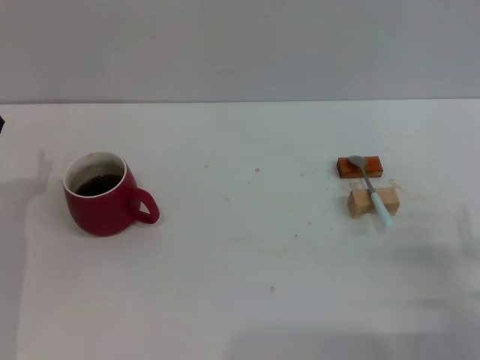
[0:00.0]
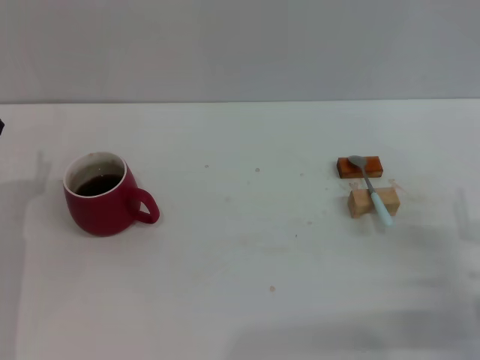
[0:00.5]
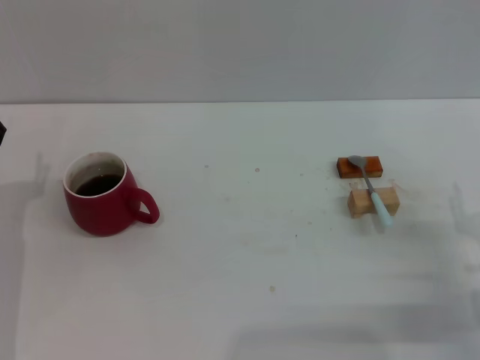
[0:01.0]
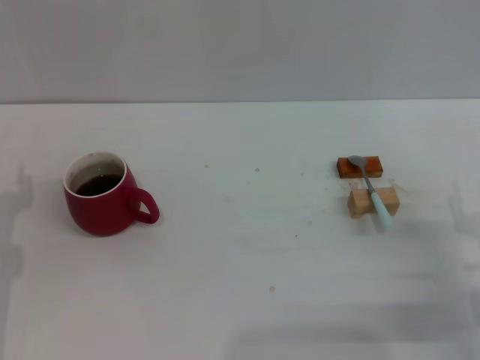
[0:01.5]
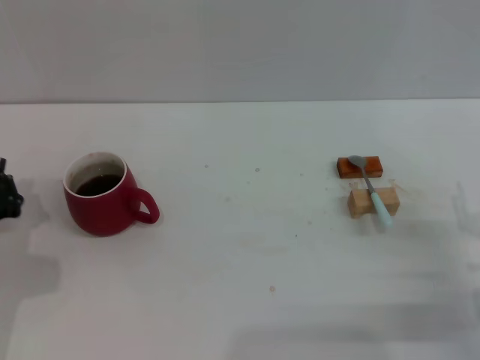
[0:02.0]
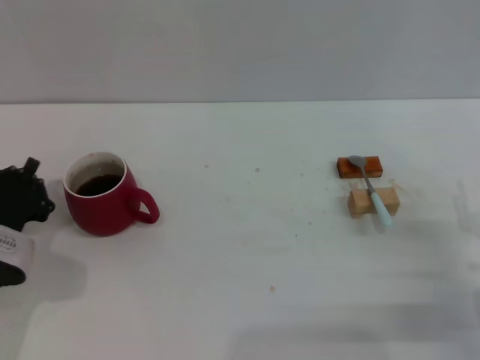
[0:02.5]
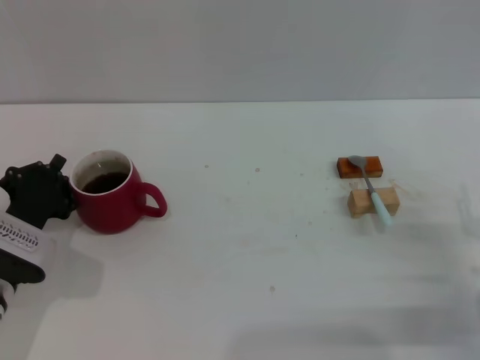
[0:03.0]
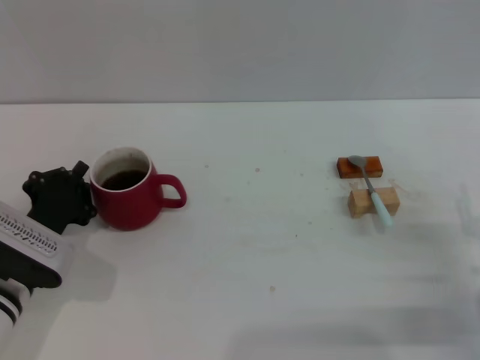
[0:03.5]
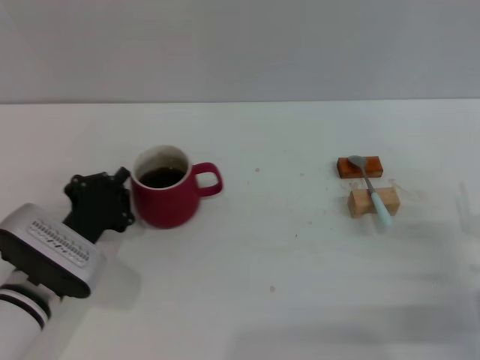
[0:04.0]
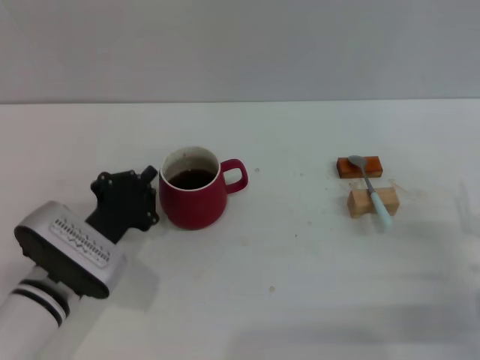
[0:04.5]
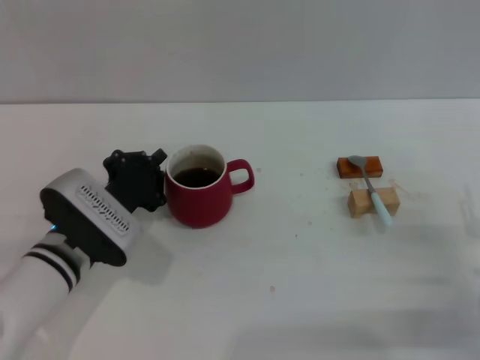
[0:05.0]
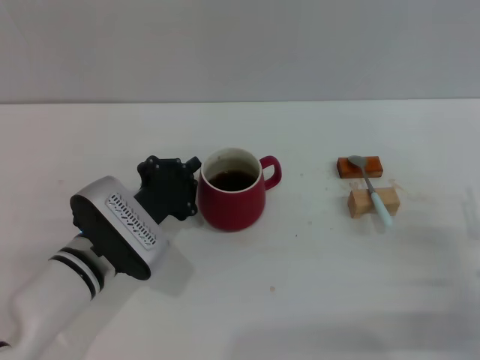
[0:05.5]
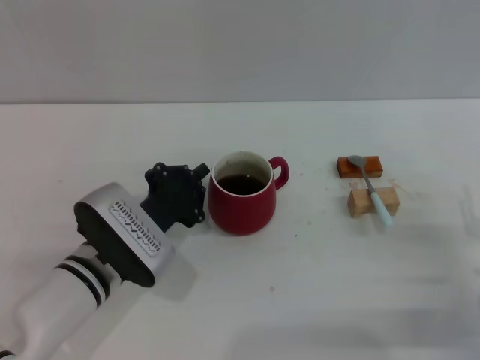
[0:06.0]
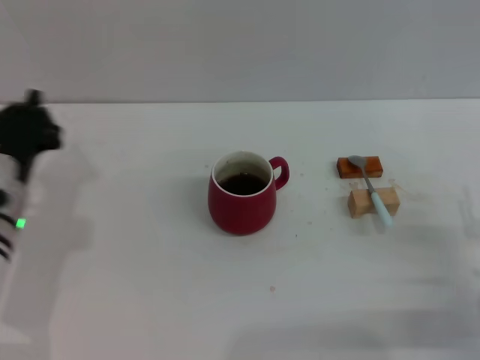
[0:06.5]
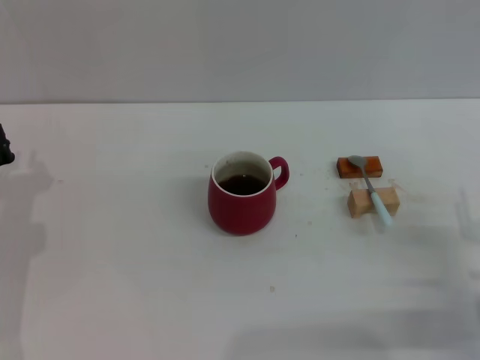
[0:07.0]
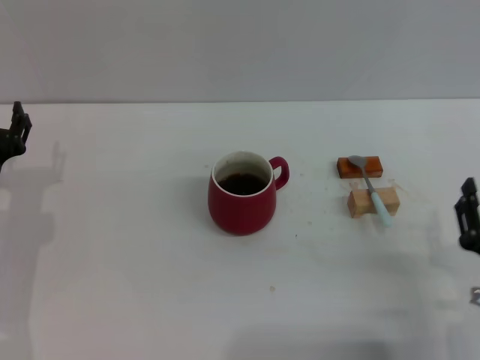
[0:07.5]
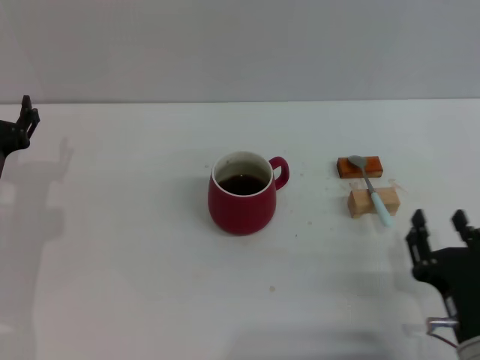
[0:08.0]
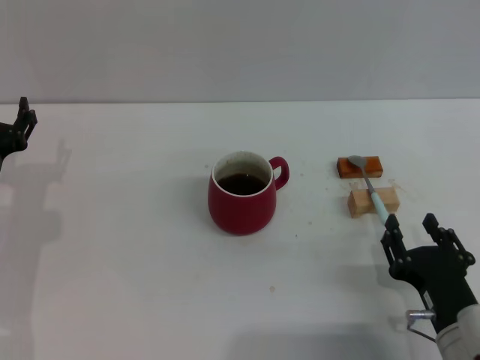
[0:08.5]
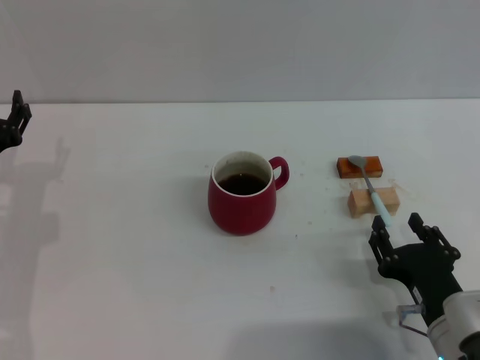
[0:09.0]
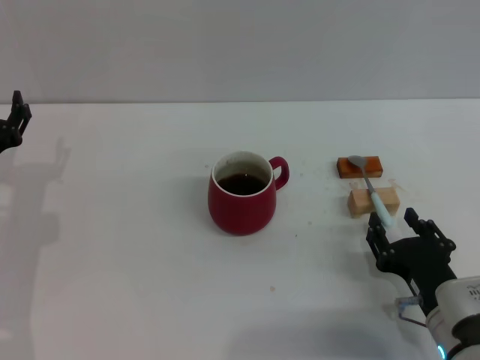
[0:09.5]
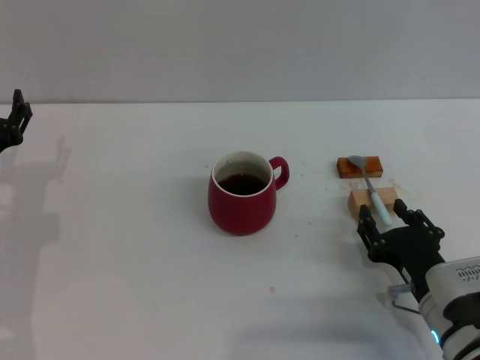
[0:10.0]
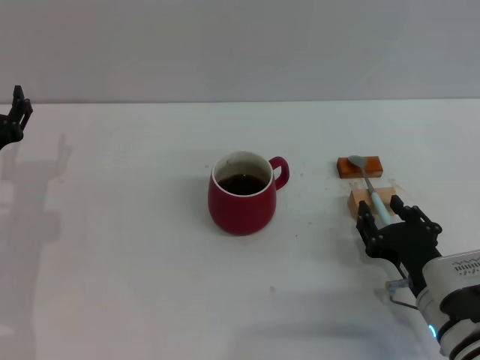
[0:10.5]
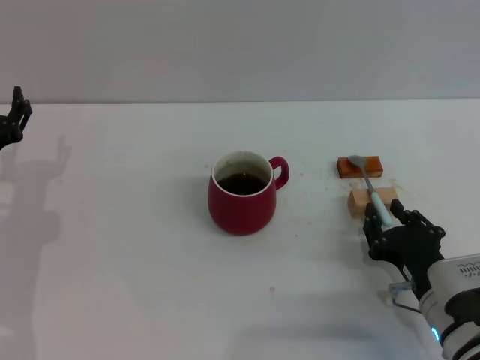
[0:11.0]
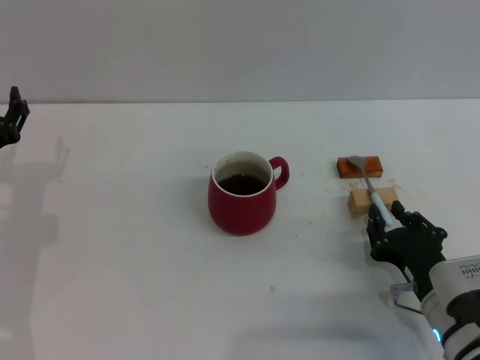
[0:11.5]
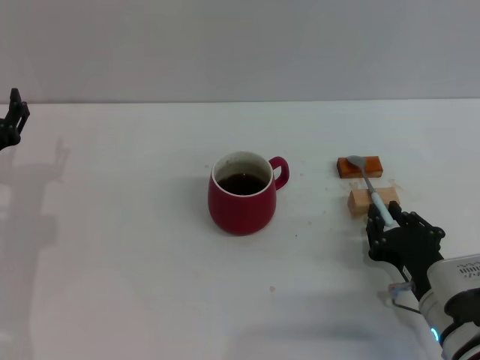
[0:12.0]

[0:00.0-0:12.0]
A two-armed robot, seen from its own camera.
Task of the whole recording: Move the red cup to the center, lift the blue spoon, stir it three times in the cup, and put the spoon into the cup.
Step, 0:00.0 to 0:06.0: Move the cup with coffee to the center of view with the left gripper.
0:00.0 to 0:02.0: The left gripper closes.
0:02.0 to 0:04.0: The left gripper shifts approximately 10 cm to the right.
0:04.0 to 0:06.0: The left gripper is displaced to the right by roughly 5 cm.
0:06.0 to 0:08.0: The left gripper moves to the left, about 15 cm, and opens its fingers, while the right gripper shifts approximately 10 cm to the left and backward.
0:08.0 to 0:10.0: The right gripper shifts roughly 5 cm forward.
0:10.0 to 0:12.0: The right gripper closes.

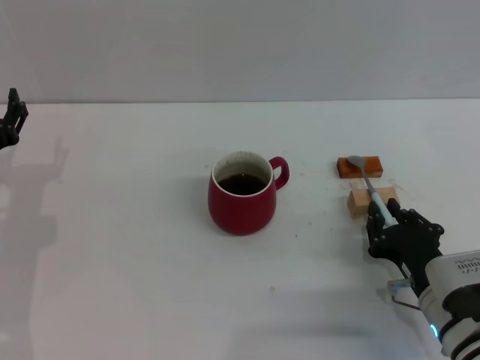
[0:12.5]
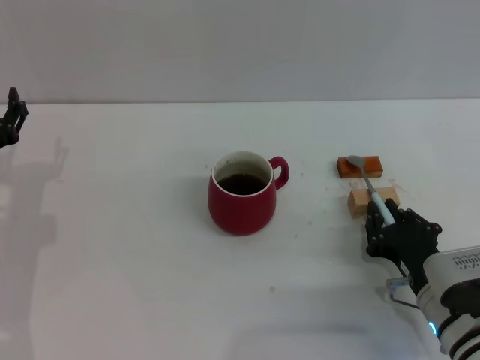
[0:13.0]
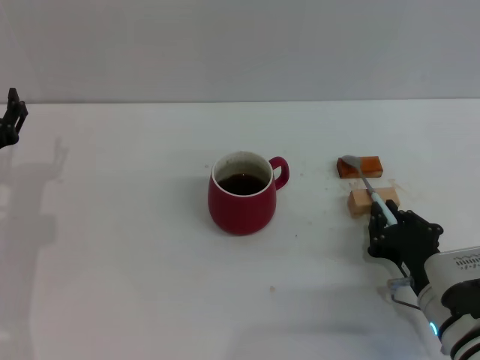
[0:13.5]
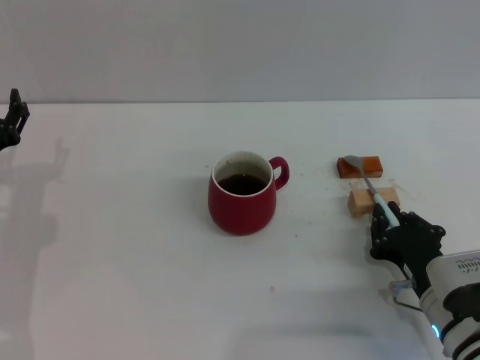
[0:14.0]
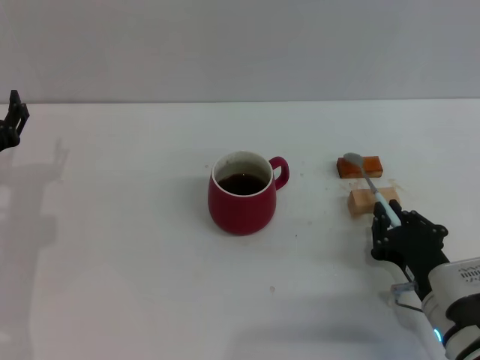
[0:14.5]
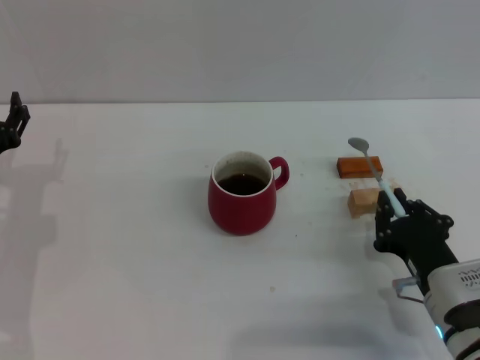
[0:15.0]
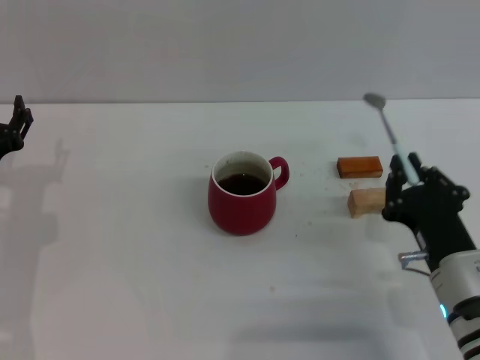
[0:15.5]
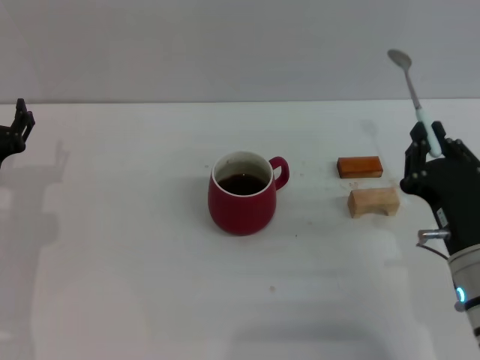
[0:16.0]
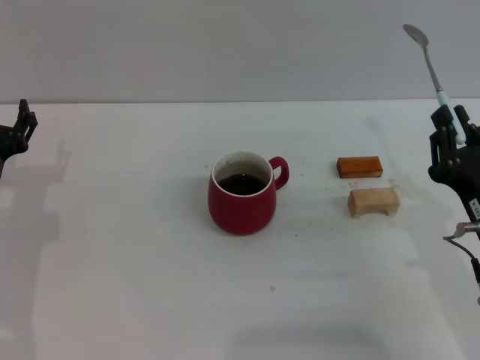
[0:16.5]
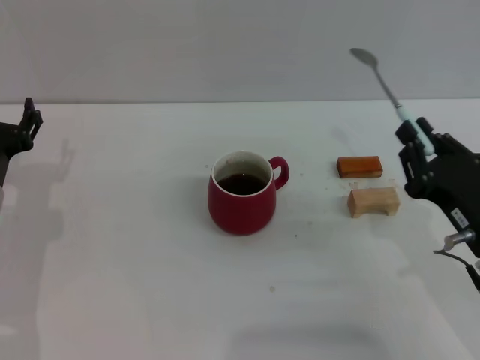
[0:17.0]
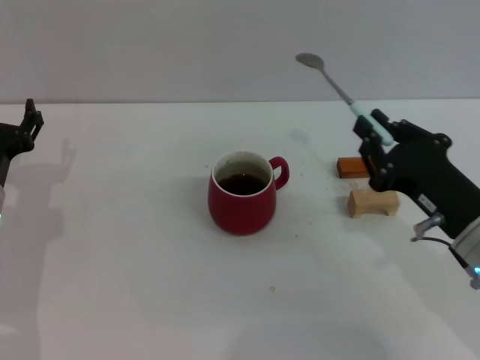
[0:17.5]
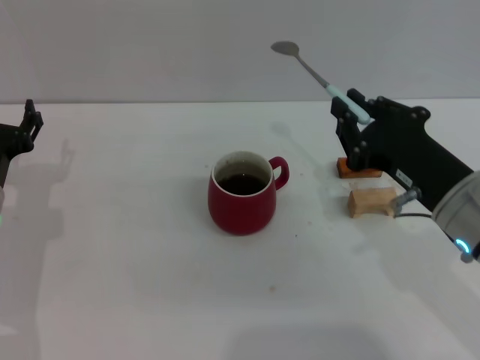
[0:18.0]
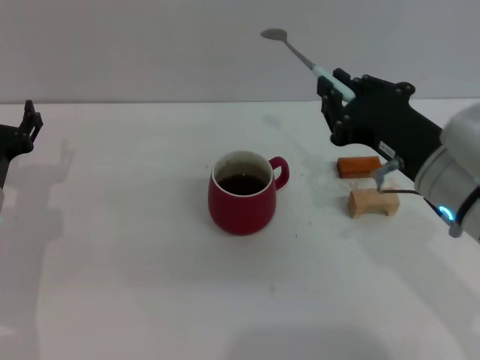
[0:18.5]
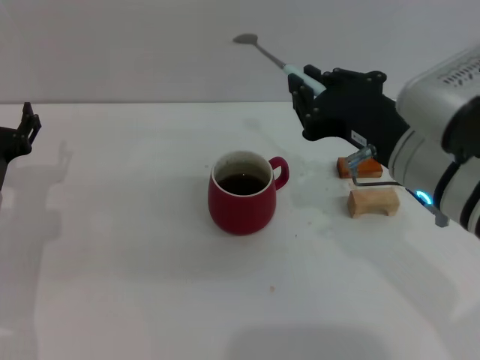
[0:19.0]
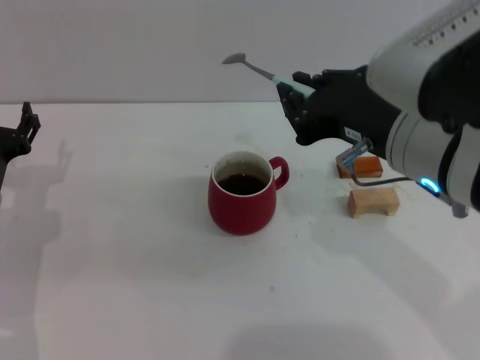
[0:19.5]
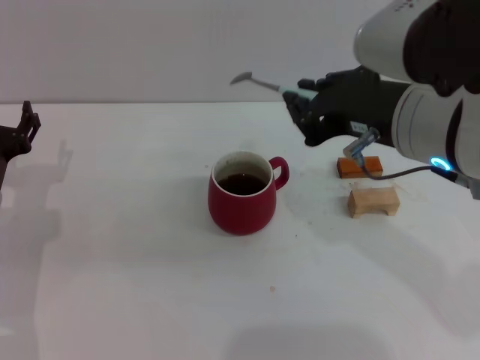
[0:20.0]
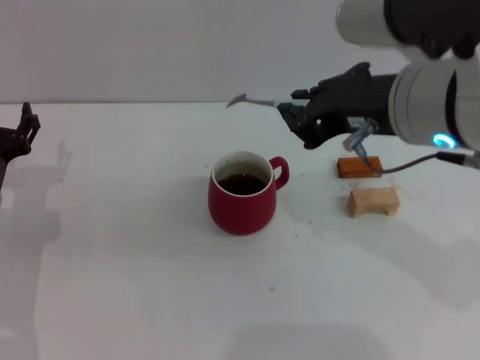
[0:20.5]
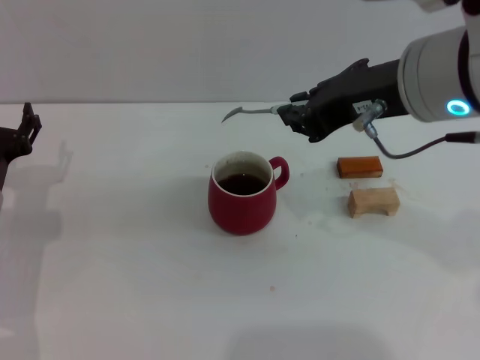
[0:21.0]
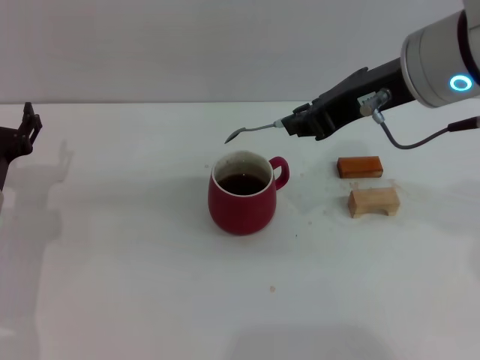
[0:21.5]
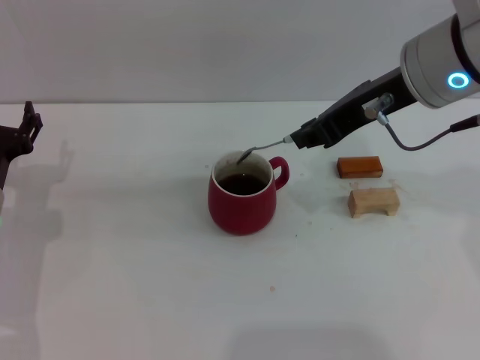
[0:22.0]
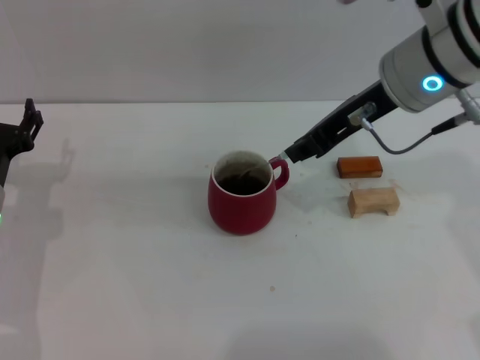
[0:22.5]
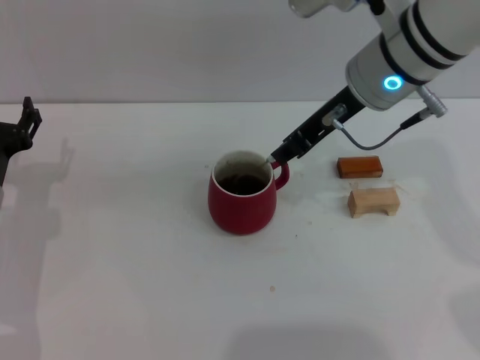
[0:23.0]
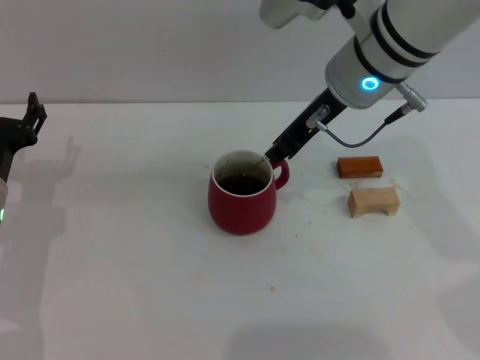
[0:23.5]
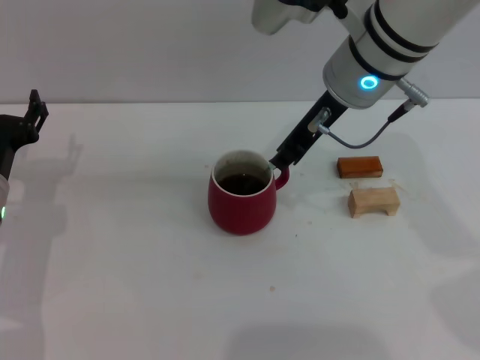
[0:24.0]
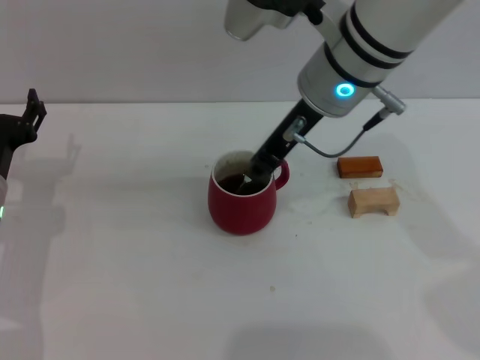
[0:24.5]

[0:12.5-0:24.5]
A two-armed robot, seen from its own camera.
Task of the whole recording: Move the red cup to the center, lift the blue spoon, stir it three times in the cup, and put the spoon into the cup.
Step, 0:12.5 to 0:16.5: Pick up the spoon with the right gripper.
0:12.5 to 0:14.5: Both grippers stay put.
0:14.5 to 0:16.5: The right gripper is displaced upward by some 5 cm.
0:16.5 to 0:18.5: The right gripper shifts some 10 cm upward and to the left.
0:18.5 to 0:20.5: The right gripper moves upward, about 10 cm.
0:20.5 to 0:22.5: The right gripper moves forward, approximately 10 cm.
0:22.5 to 0:24.5: The right gripper shifts some 5 cm to the left.

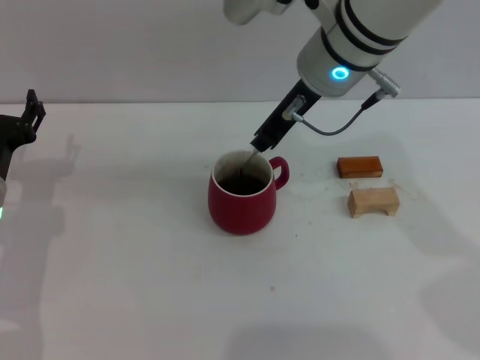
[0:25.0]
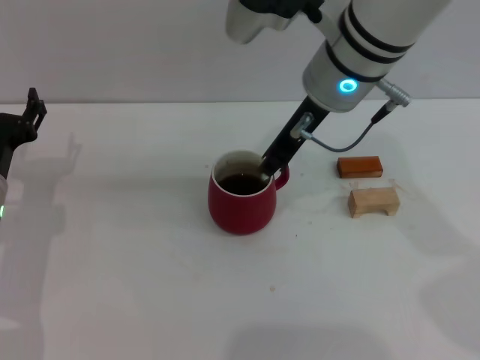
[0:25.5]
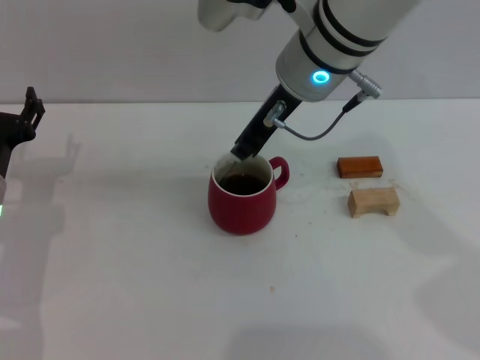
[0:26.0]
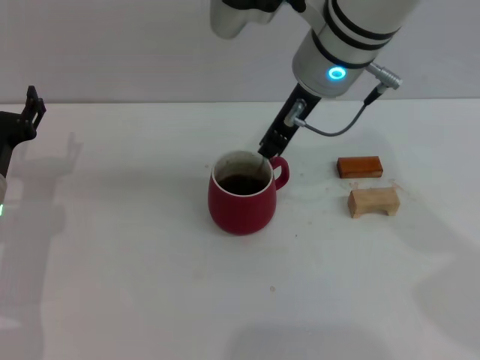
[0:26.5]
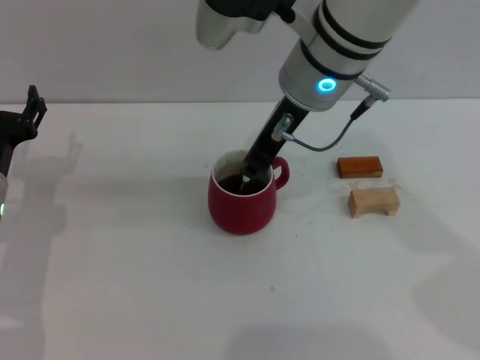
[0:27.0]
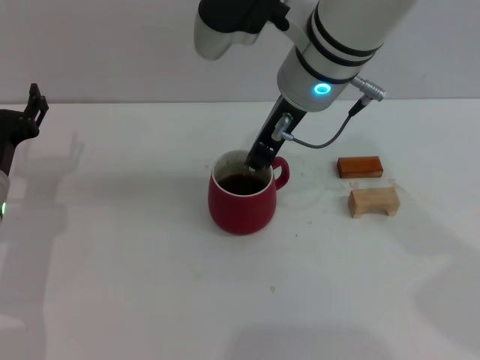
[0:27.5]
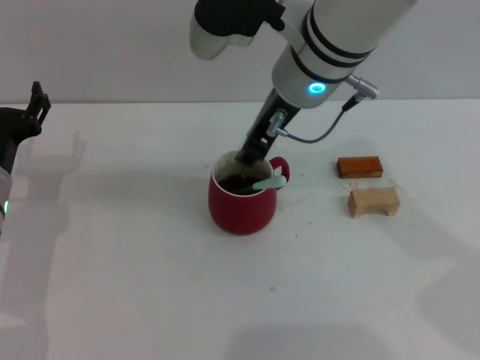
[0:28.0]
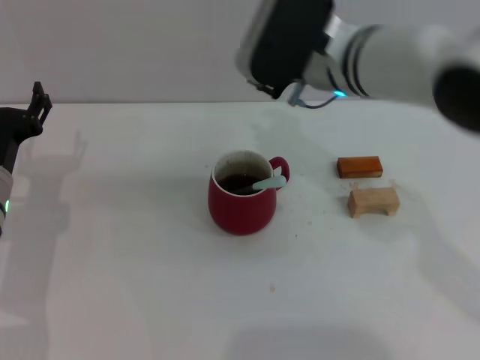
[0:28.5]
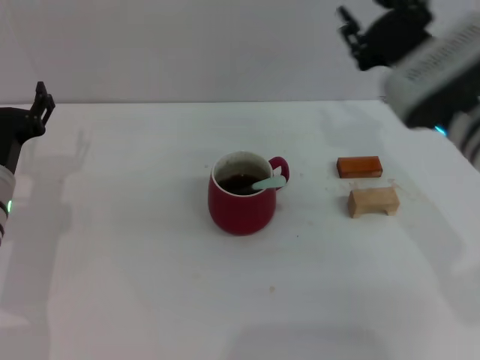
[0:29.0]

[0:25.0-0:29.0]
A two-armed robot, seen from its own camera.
Task of the whole recording: Move the red cup to the center, lift the blue spoon, stir it three times in the cup, and put the spoon into the cup.
Step, 0:25.0 to 0:28.0: Stir the coffee in the cup with the right gripper.
0:25.0 to 0:27.0: There are only small adjustments of the grippers.
0:27.0 to 0:29.0: The right gripper is displaced to the right and downward by roughly 15 cm.
